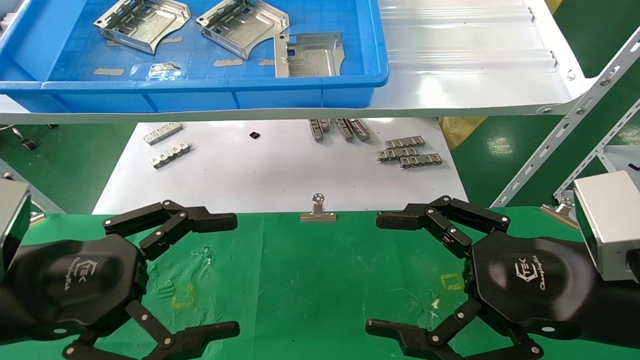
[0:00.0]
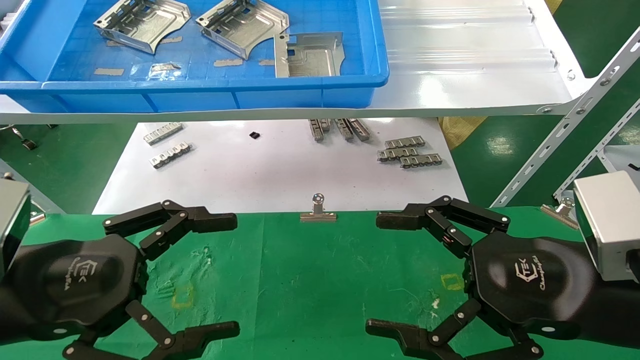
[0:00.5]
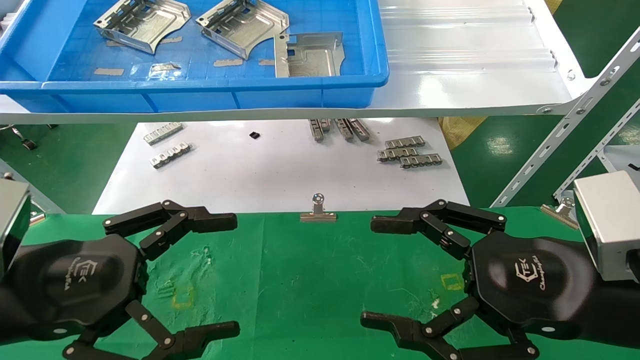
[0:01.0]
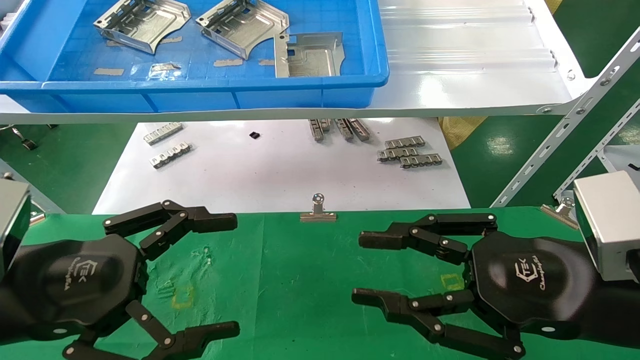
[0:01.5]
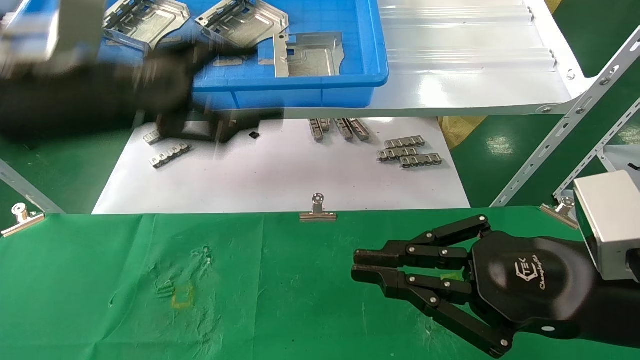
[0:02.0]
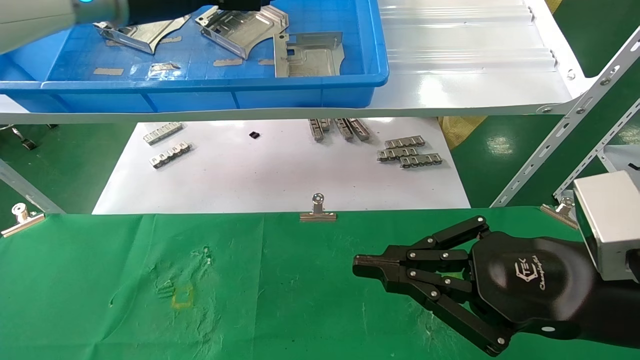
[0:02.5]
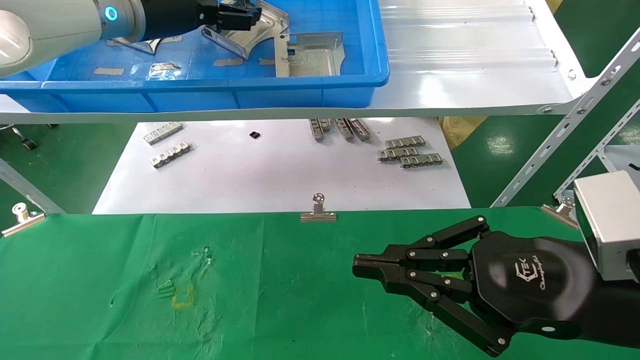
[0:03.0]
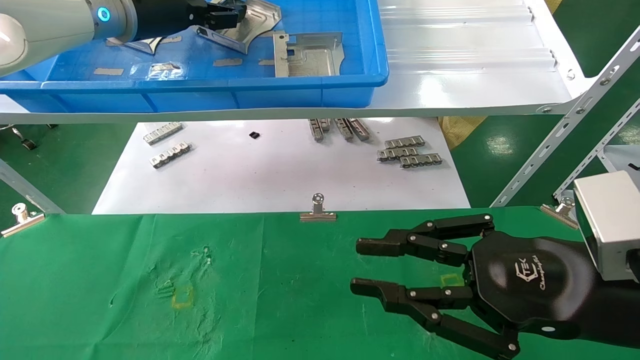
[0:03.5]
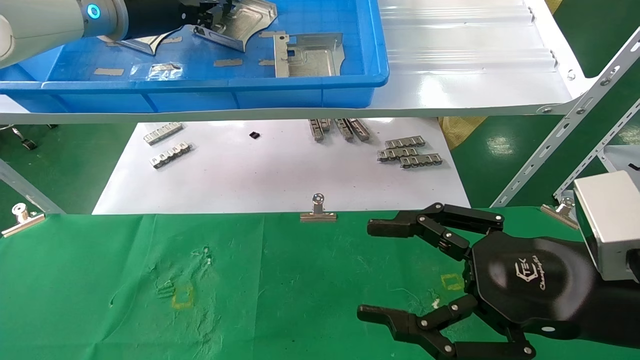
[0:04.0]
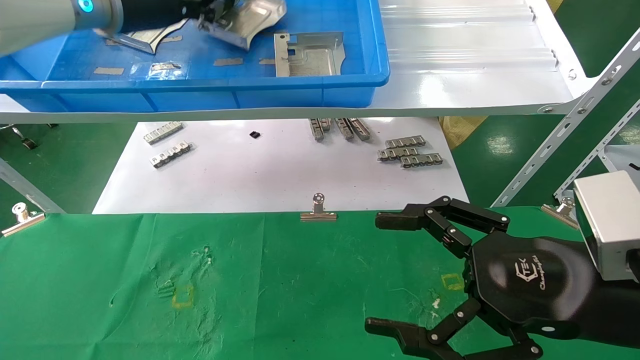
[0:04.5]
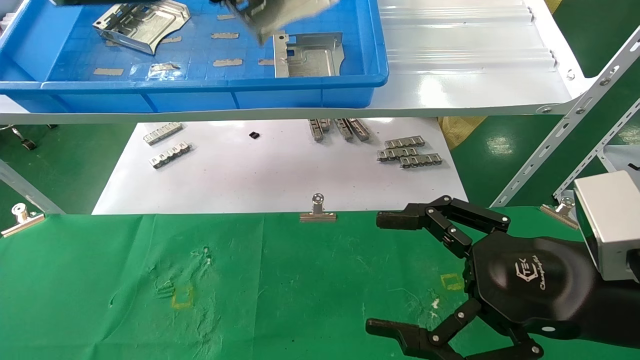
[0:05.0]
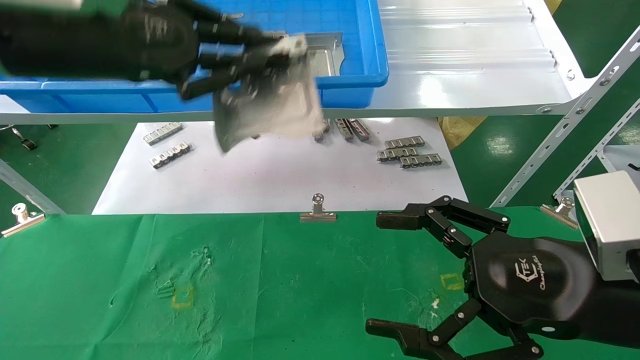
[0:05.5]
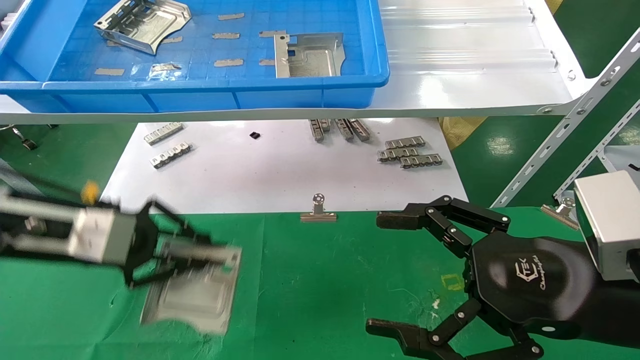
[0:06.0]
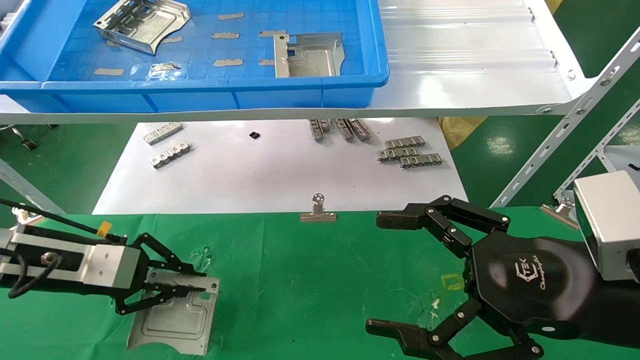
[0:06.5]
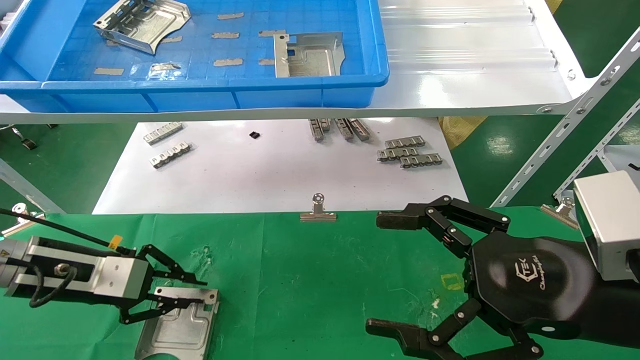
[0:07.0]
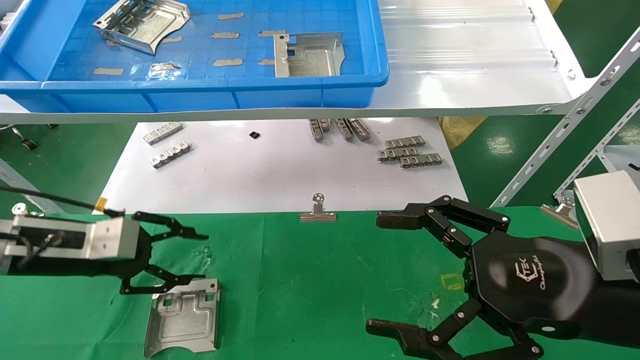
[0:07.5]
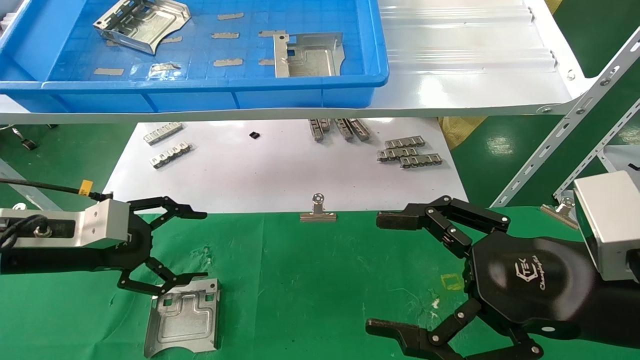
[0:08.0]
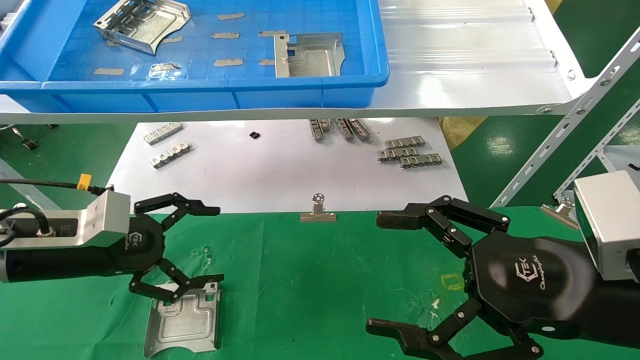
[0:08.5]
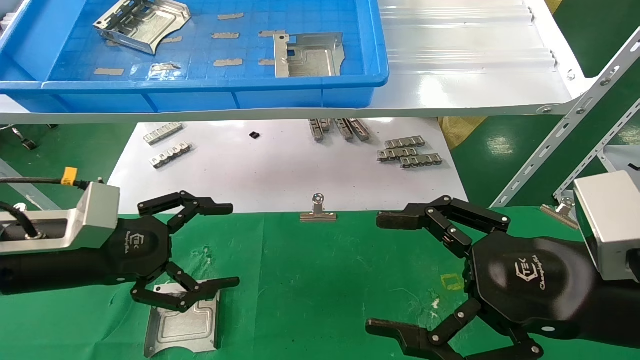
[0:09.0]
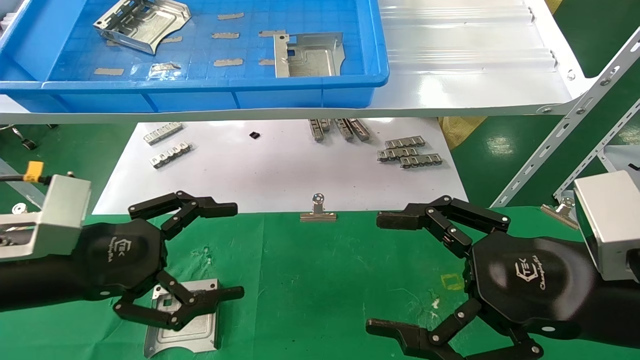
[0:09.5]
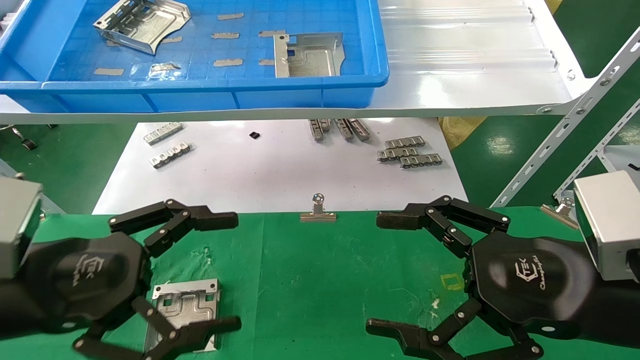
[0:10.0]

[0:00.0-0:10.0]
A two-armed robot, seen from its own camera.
Task of the whole recording: use the mechanical arm to pick up the parts and place them on the table.
Step, 0:02.0 to 0:05.0: Pick up the hard drive bracket from the feeding area.
Step, 0:05.5 to 0:07.5: Place the hard drive bracket into the box.
0:00.0 to 0:02.0: The right gripper closes. The left gripper moves upward and forward, some 20 cm.
0:02.0 to 0:04.0: The right gripper opens. The left gripper moves forward and upward, roughly 15 cm, and closes up.
0:04.0 to 0:06.0: The left gripper travels downward and backward by about 25 cm, while the right gripper opens its fingers.
0:06.0 to 0:08.0: The left gripper travels downward by some 5 cm, and opens.
0:08.0 to 0:10.0: The left gripper shifts roughly 15 cm backward and to the right.

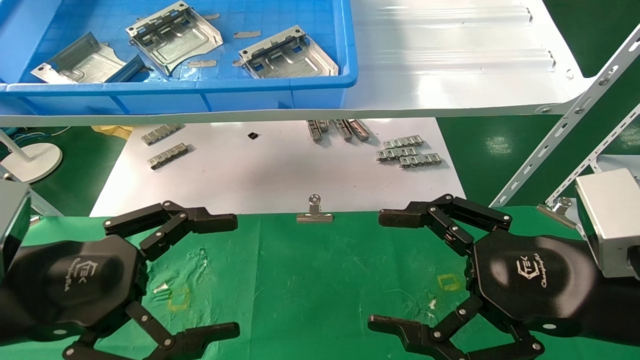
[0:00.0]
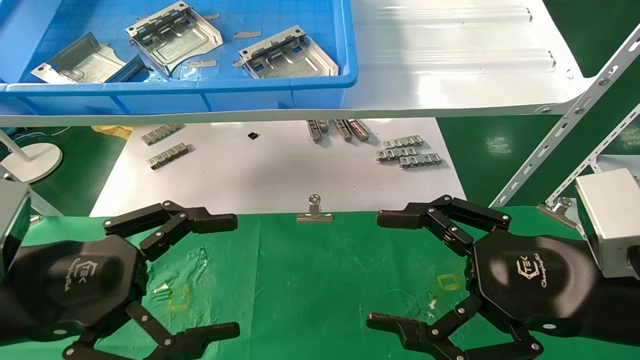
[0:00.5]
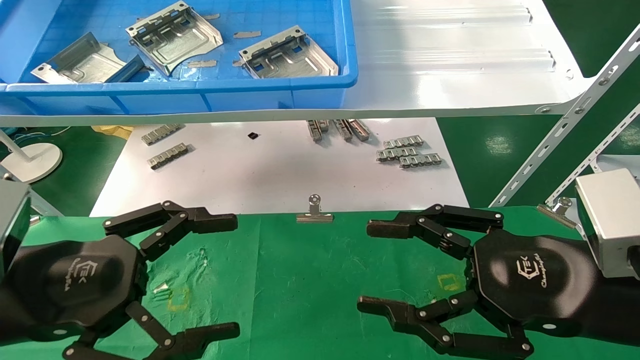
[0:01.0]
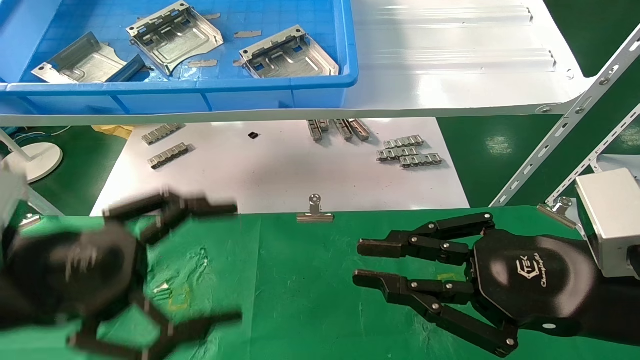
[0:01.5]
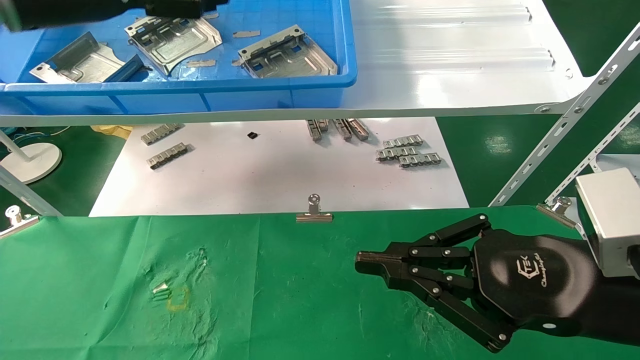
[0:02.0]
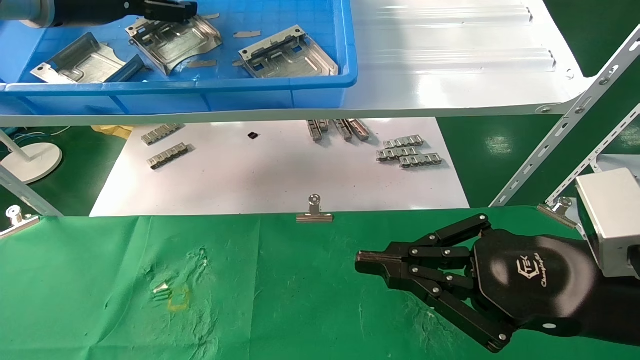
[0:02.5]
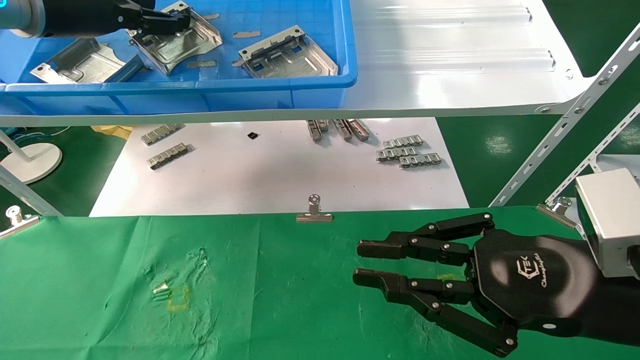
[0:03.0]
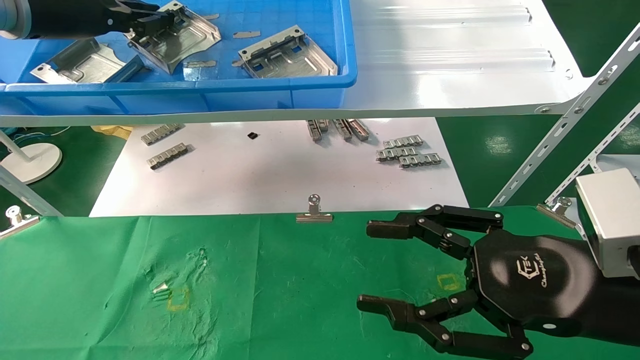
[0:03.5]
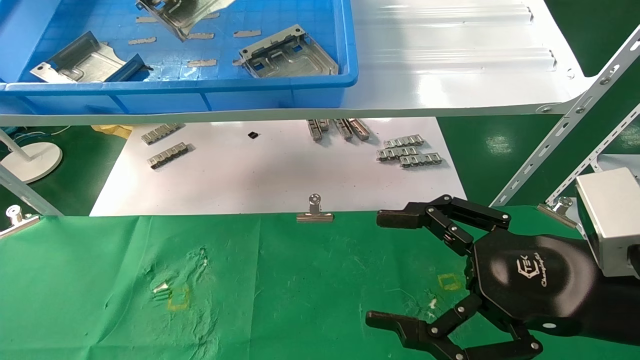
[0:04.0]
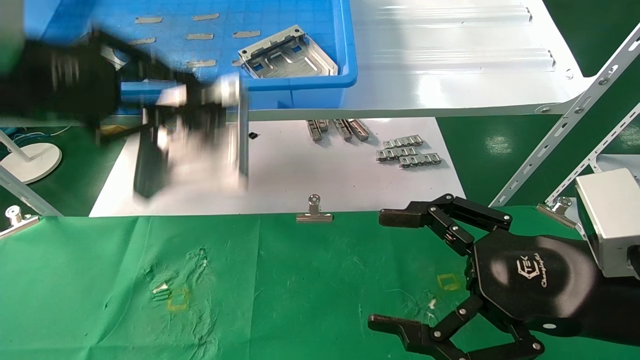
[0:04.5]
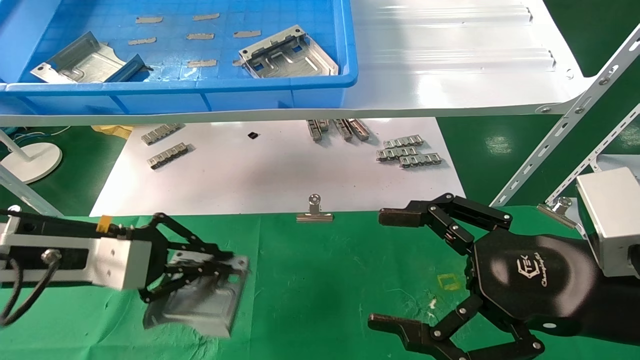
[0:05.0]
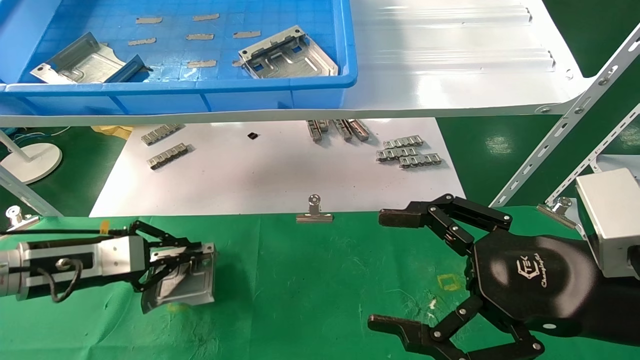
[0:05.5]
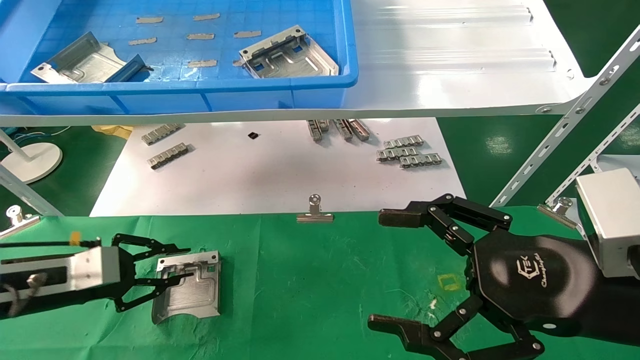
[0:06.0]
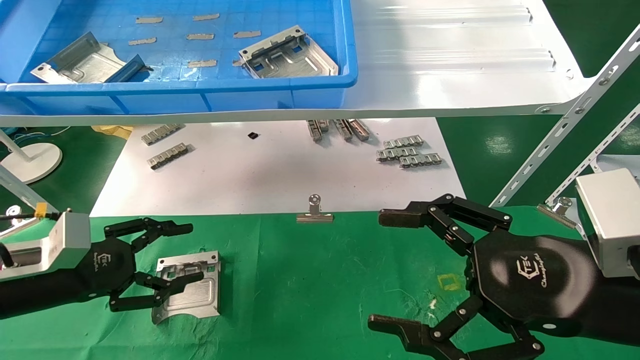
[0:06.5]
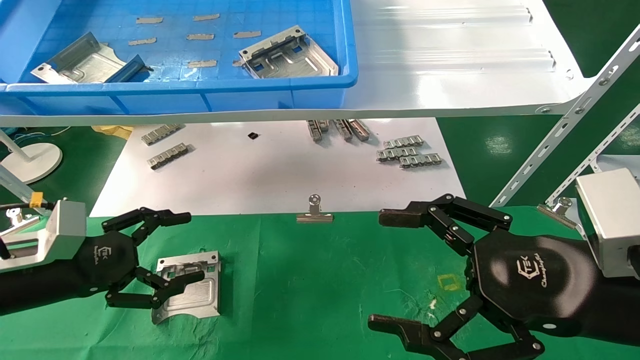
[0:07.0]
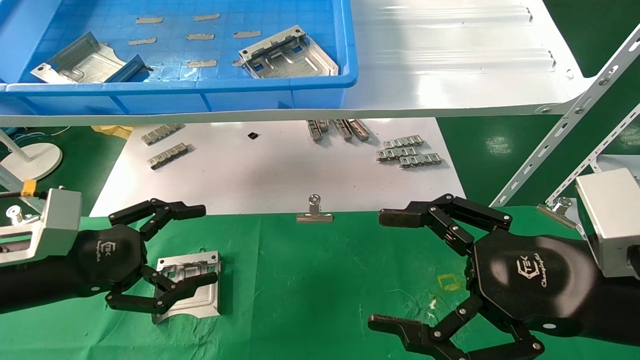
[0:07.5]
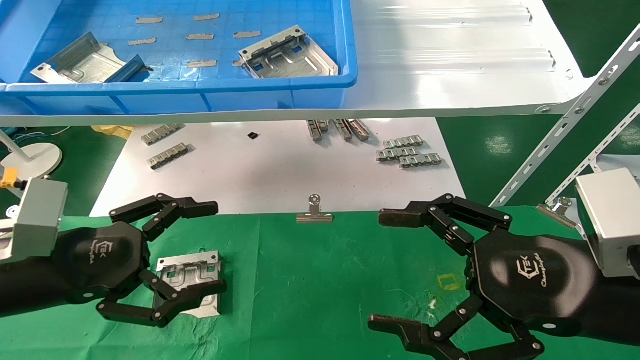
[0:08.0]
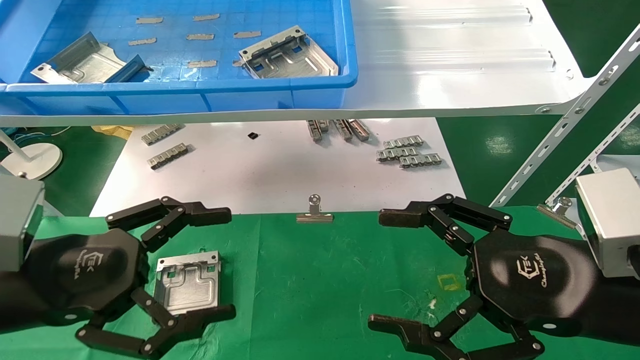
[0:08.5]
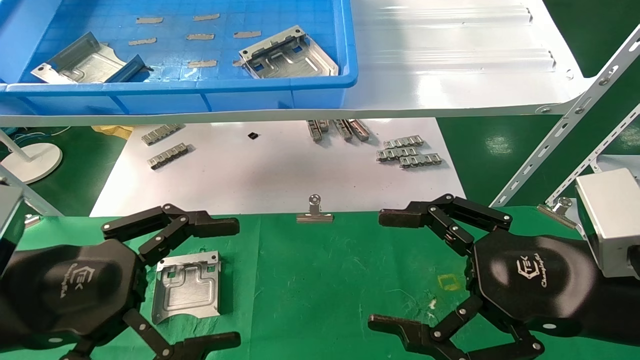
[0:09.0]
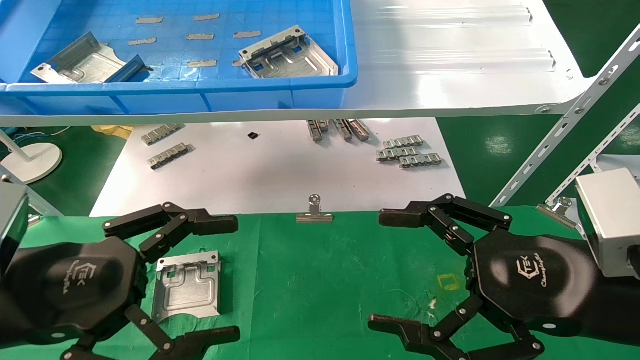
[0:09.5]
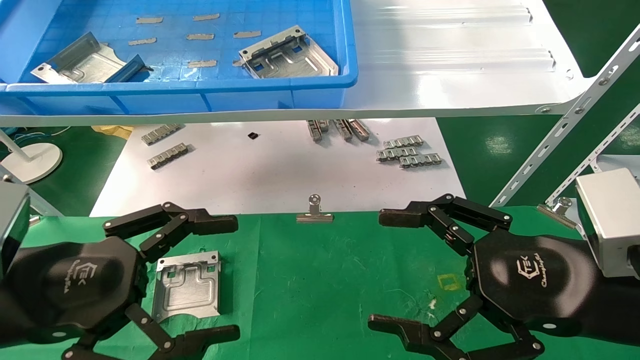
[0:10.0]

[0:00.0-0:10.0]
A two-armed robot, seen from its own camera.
Task of the whole recording: use the mechanical arm to pick up the parts and place them on the table.
Step, 0:01.5 to 0:04.0: Pick up the hard drive bracket from the feeding area.
Step, 0:04.5 to 0:06.0: Place the hard drive bracket into the box.
0:00.0 to 0:02.0: The left gripper is displaced upward and forward by approximately 30 cm; the right gripper closes.
0:02.0 to 0:04.0: The left gripper reaches roughly 5 cm forward, then returns, and closes up, while the right gripper opens.
0:04.0 to 0:06.0: The left gripper heads downward, covering some 35 cm.
0:06.0 to 0:08.0: The left gripper heads backward, to the right and upward, covering some 10 cm, and opens its fingers.
0:08.0 to 0:10.0: The left gripper is displaced backward by about 5 cm.
